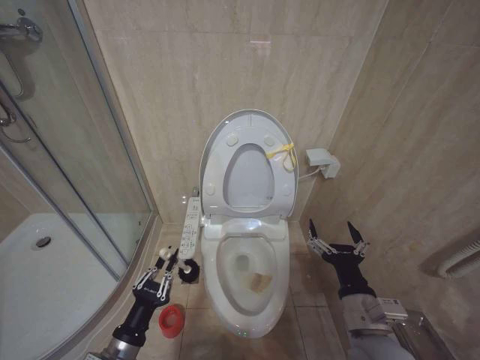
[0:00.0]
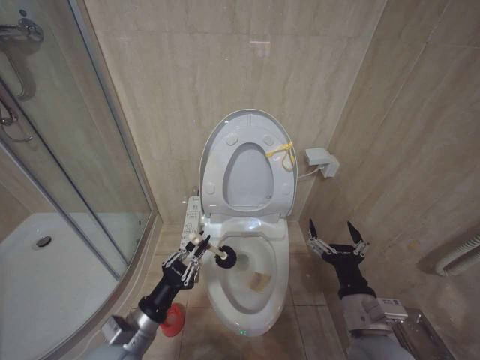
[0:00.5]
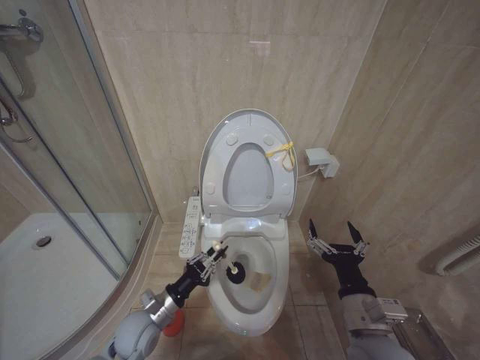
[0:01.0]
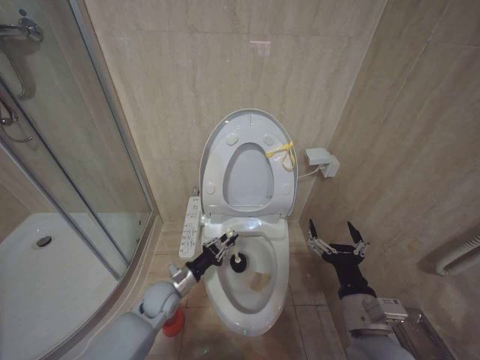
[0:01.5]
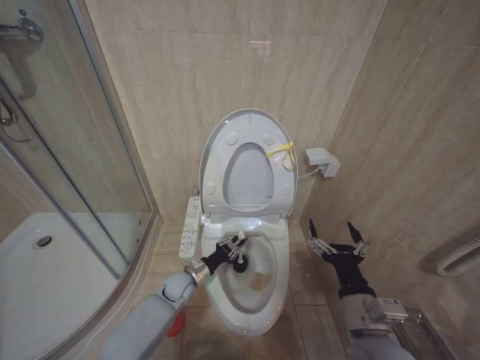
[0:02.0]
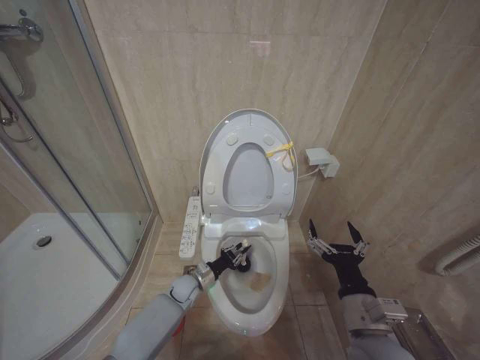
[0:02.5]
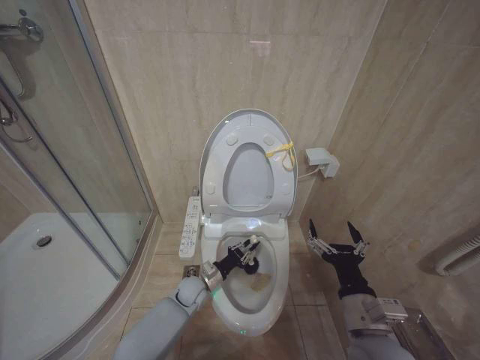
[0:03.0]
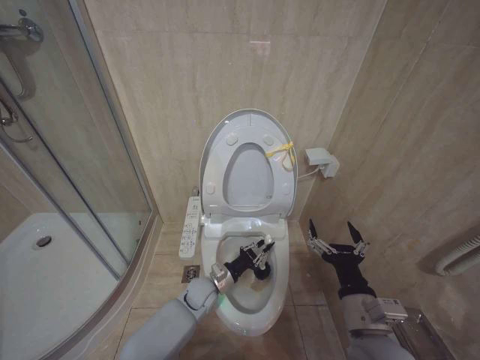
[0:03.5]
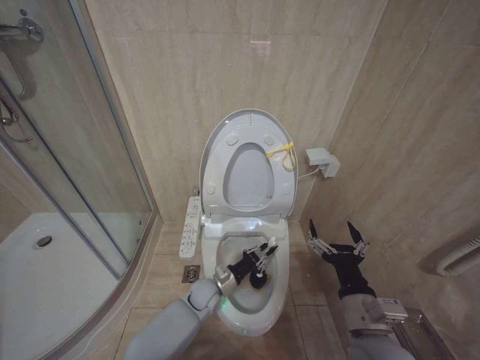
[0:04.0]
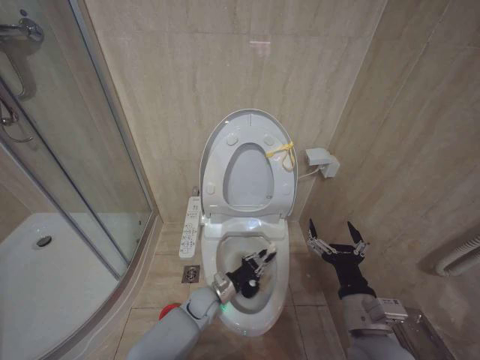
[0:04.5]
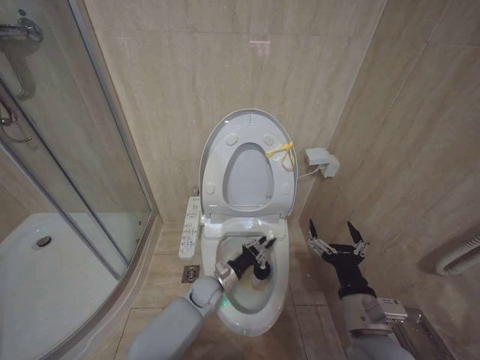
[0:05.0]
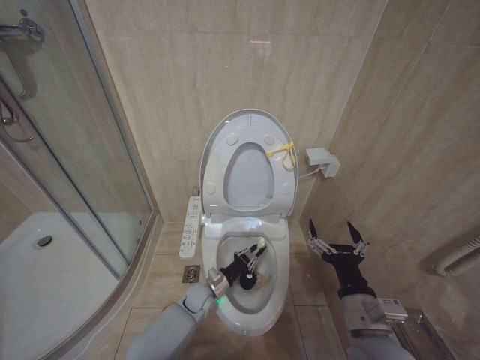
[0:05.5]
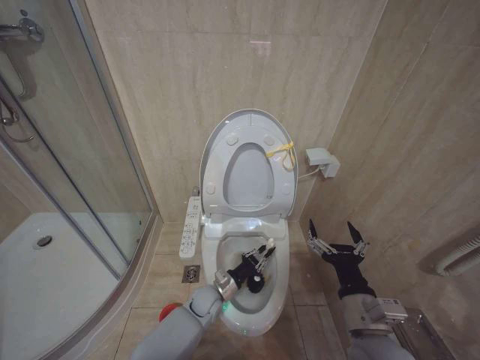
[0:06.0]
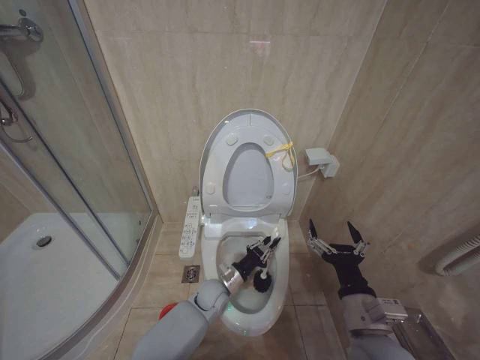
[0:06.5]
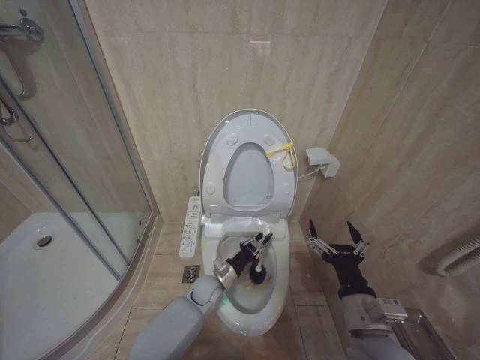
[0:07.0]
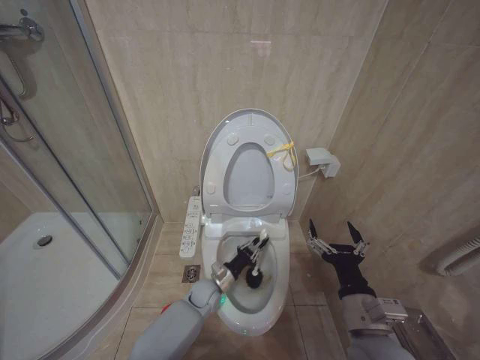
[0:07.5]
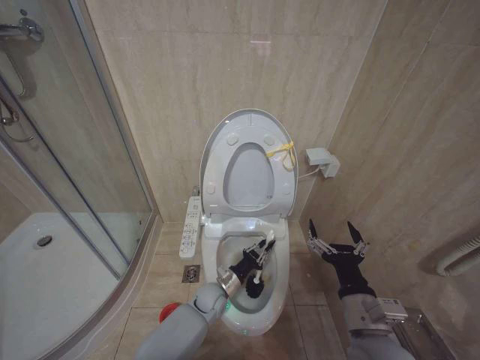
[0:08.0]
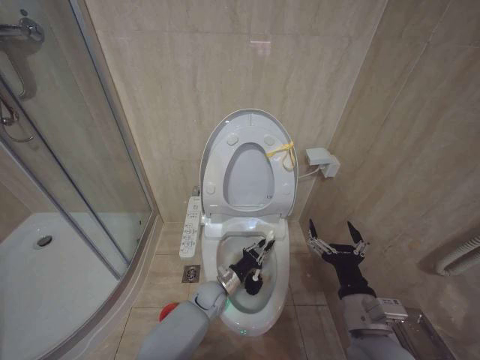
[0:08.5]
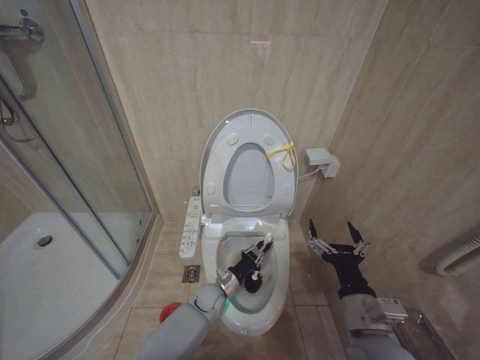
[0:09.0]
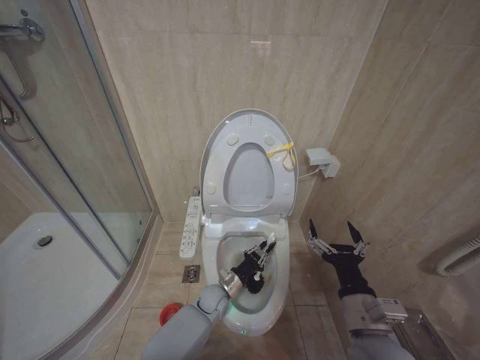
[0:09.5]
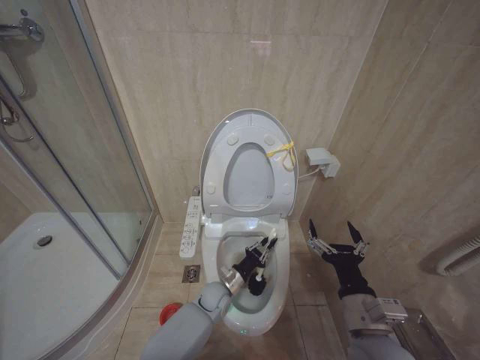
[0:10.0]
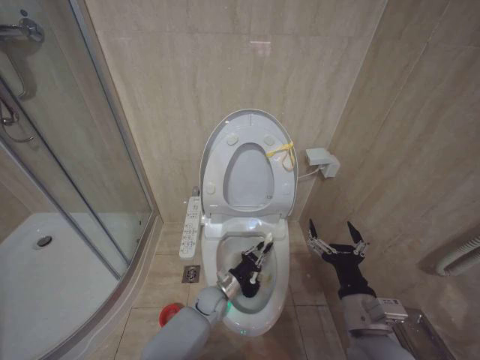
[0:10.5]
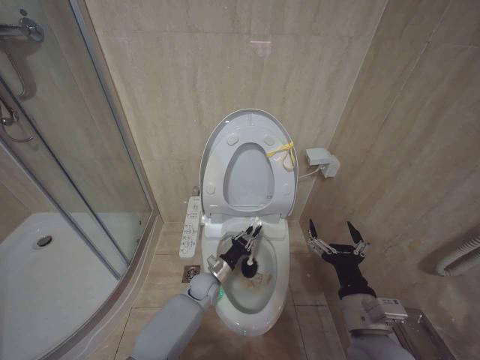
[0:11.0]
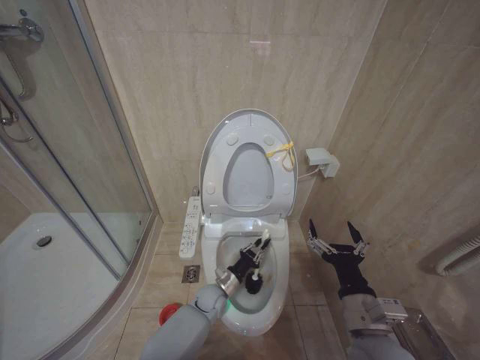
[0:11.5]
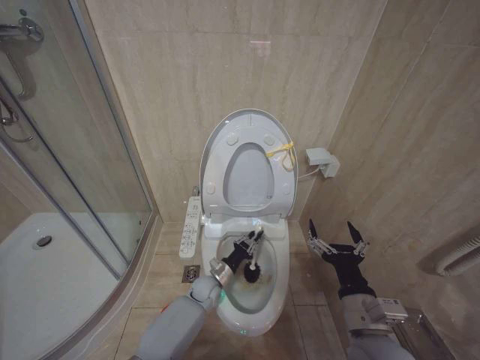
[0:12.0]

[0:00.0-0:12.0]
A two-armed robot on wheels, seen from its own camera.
Task of the whole recording: Open the toilet lid, clean the toilet bowl with a toilet brush, close the toilet lid, and flush.
0:00.0 to 0:02.0: The left gripper moves forward, about 25 cm.
0:02.0 to 0:04.0: The left gripper goes approximately 10 cm to the right.
0:04.0 to 0:06.0: There are only small adjustments of the grippers.
0:10.0 to 0:12.0: The left gripper changes place by roughly 5 cm.

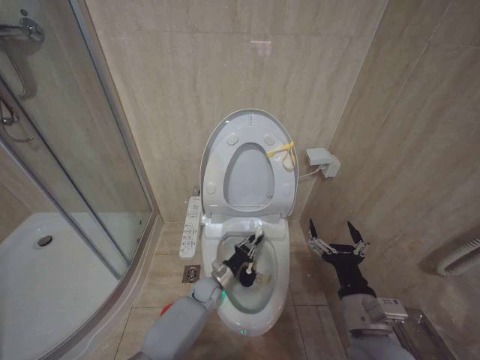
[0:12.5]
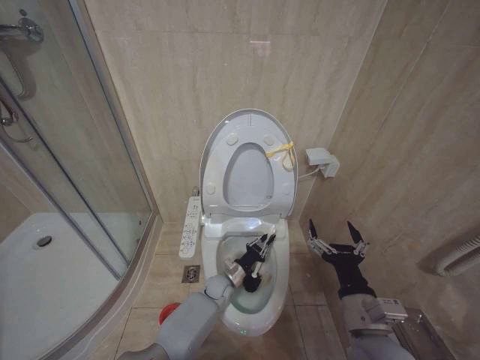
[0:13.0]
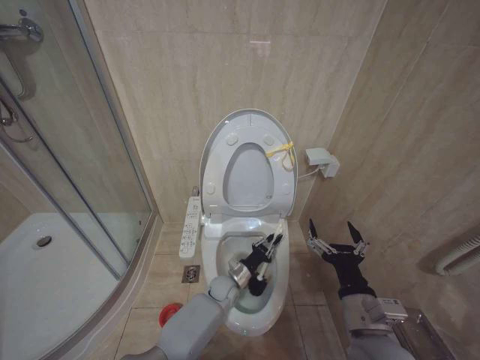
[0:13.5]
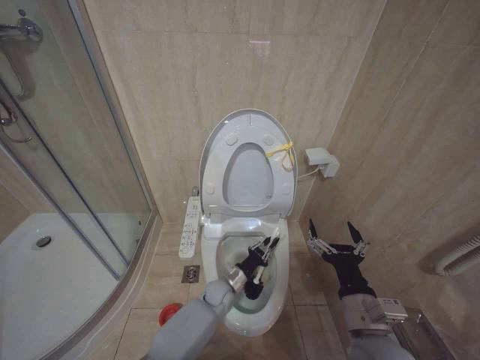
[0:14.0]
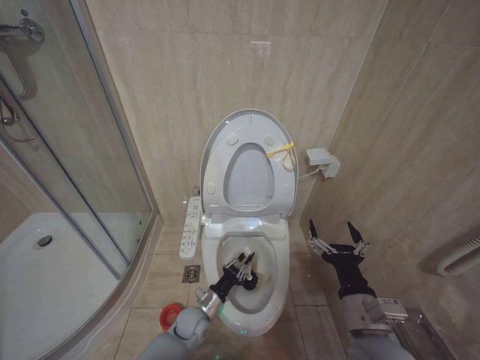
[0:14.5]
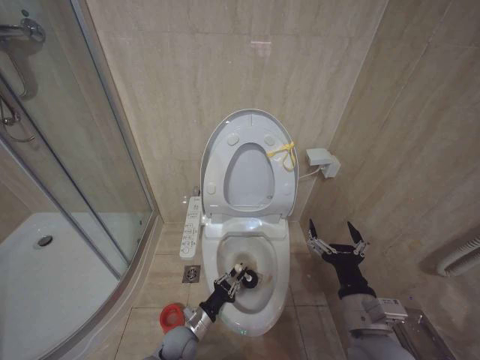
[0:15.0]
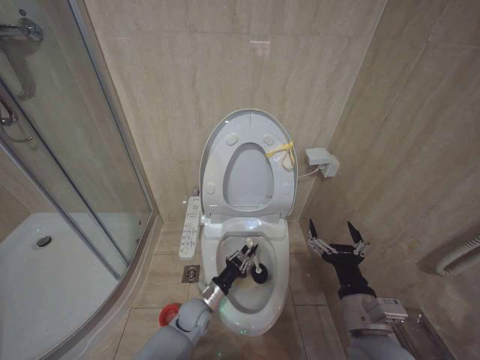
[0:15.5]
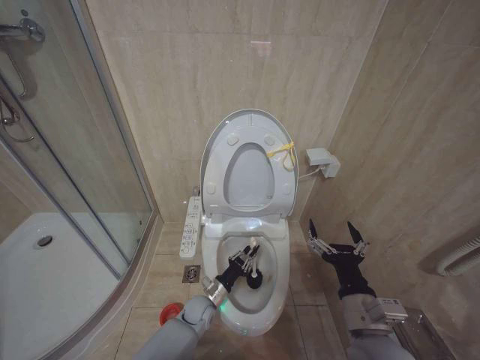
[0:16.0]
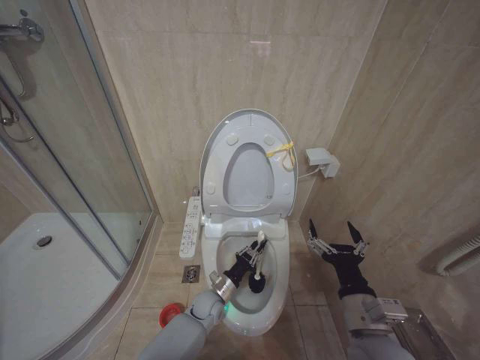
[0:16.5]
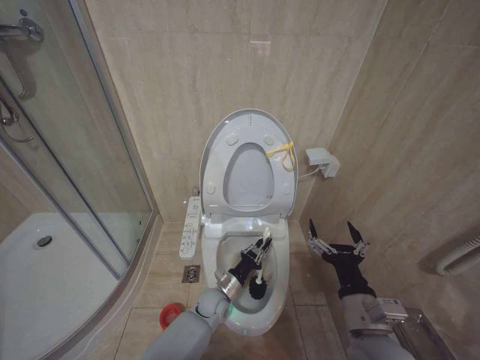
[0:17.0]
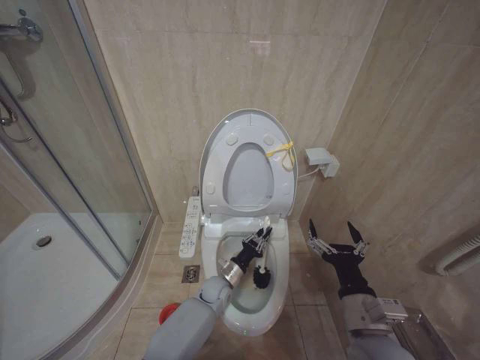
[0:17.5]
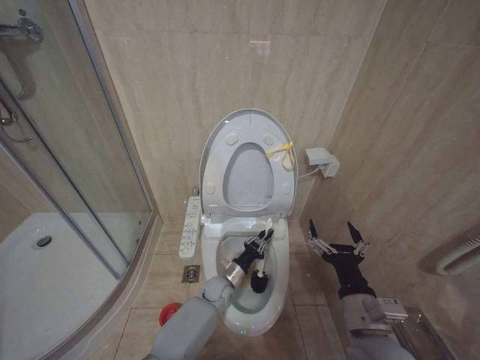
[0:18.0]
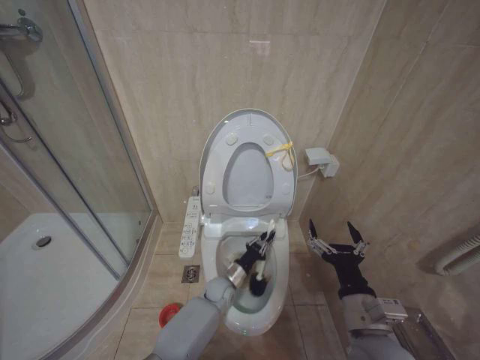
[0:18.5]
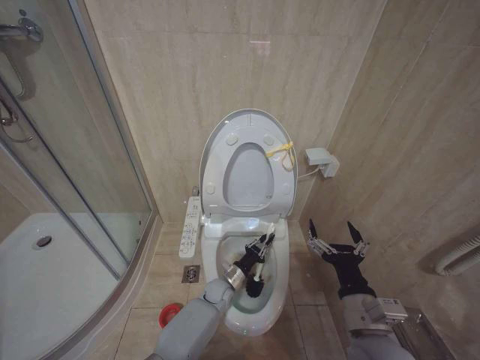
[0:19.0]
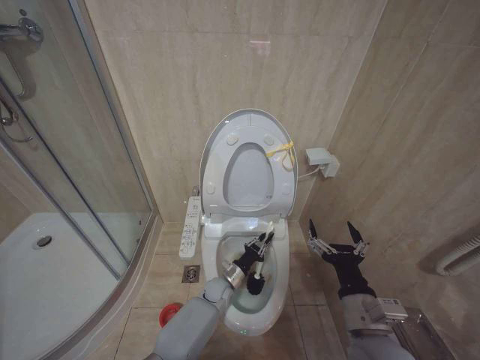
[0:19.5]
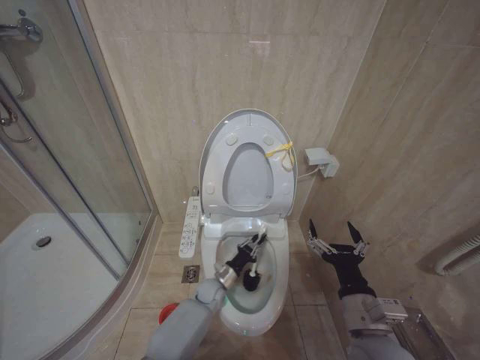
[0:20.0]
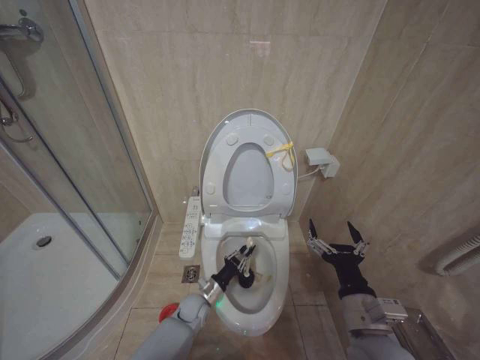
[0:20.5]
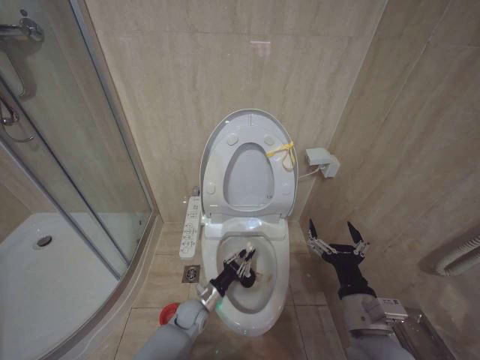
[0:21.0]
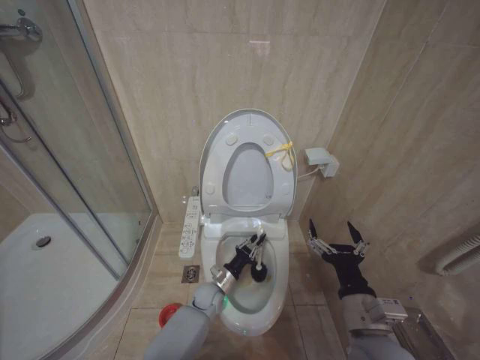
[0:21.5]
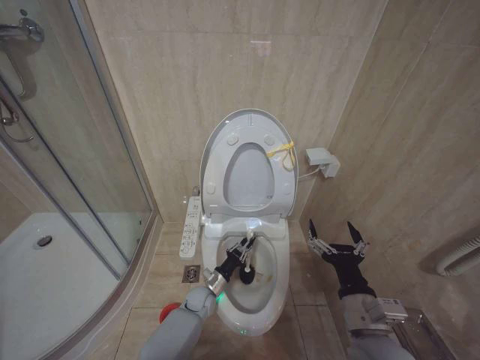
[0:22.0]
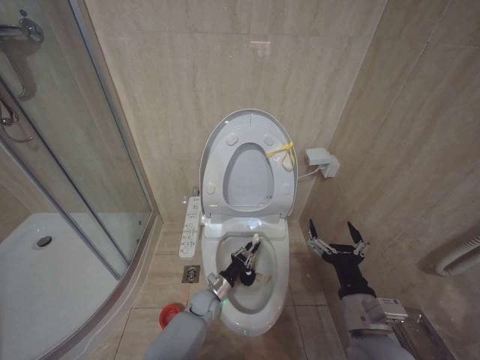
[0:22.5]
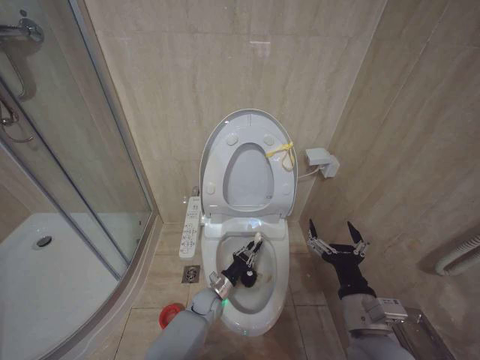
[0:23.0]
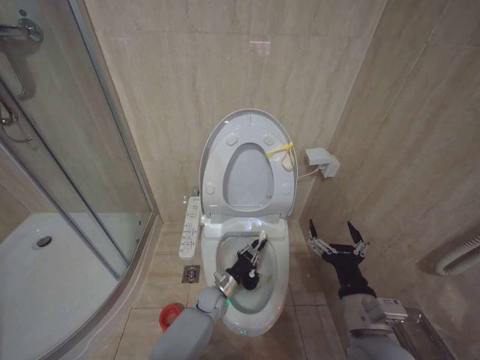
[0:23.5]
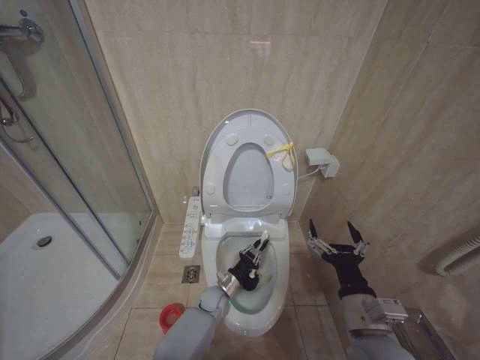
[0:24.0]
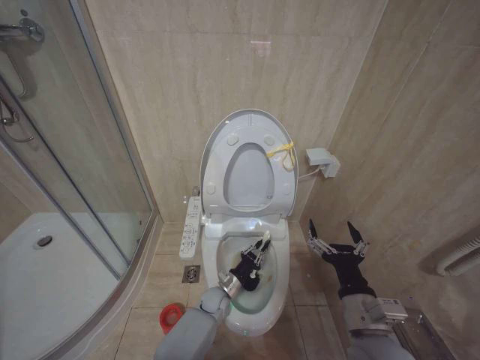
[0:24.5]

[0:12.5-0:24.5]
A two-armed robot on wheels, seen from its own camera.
Task of the whole recording: Open the toilet lid, clean the toilet bowl with a toilet brush, close the toilet lid, and flush.
0:12.5 to 0:14.5: The left gripper shifts about 5 cm backward, and travels to the right and back again, approximately 5 cm each way.
0:16.5 to 0:18.5: The left gripper shifts by about 5 cm.
0:18.5 to 0:20.5: The left gripper heads to the left, covering some 10 cm.
0:20.5 to 0:22.5: There are only small adjustments of the grippers.
0:22.5 to 0:24.5: The grippers move only a little.

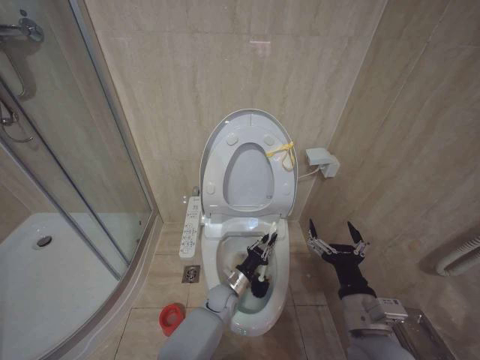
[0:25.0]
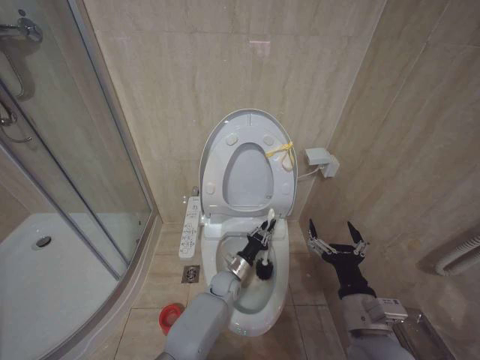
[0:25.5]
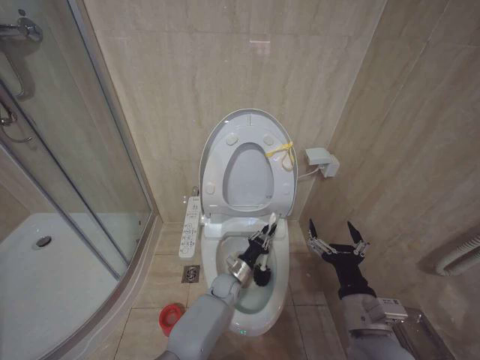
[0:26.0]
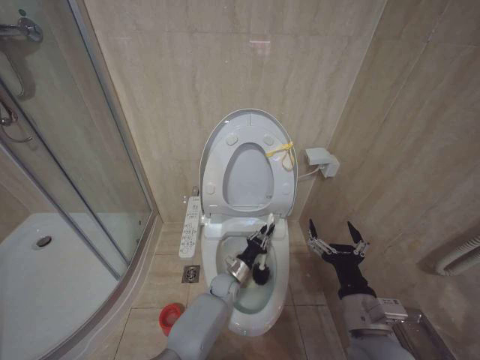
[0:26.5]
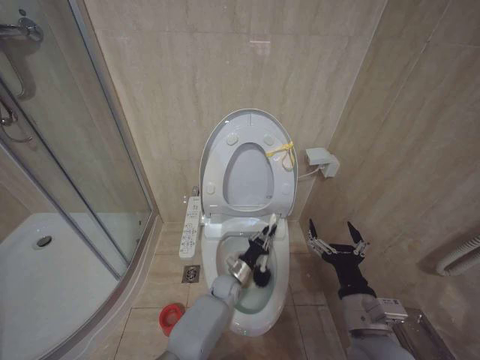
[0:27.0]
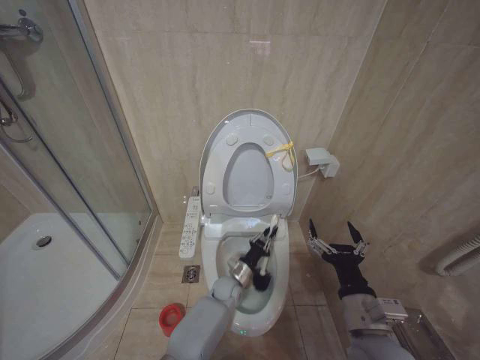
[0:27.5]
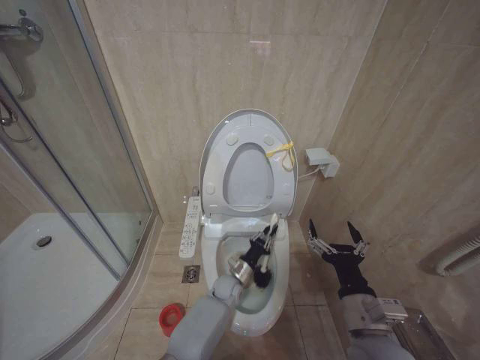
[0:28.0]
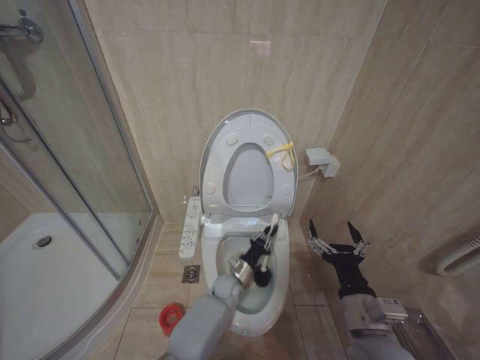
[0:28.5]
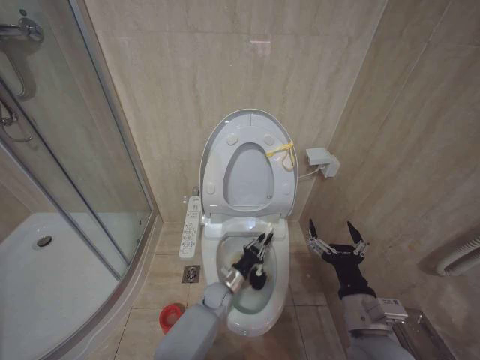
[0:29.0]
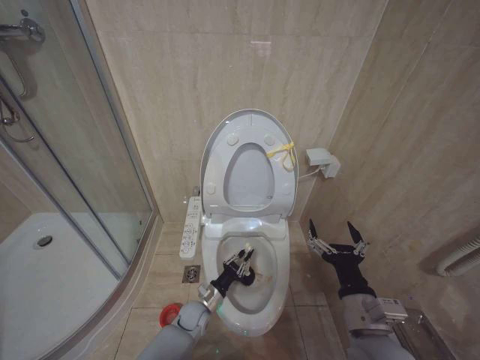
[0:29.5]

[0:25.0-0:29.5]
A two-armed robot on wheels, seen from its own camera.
Task of the whole recording: Open the toilet lid, clean the toilet bowl with a toilet brush, close the toilet lid, and flush.
0:25.0 to 0:27.0: There are only small adjustments of the grippers.
0:27.0 to 0:29.5: The left gripper shifts roughly 10 cm to the left and backward.
